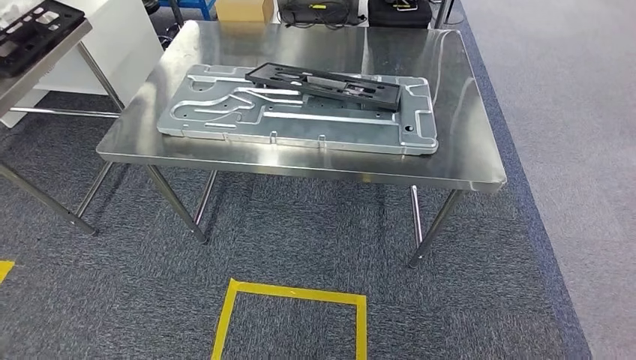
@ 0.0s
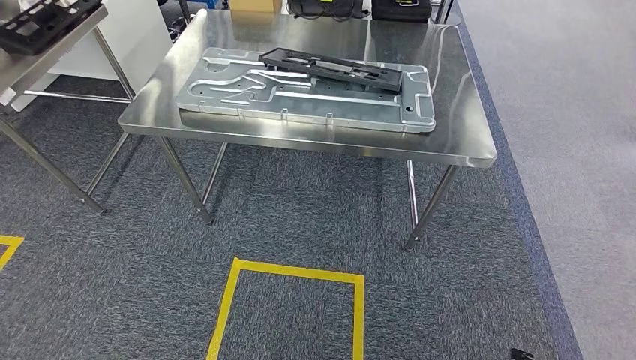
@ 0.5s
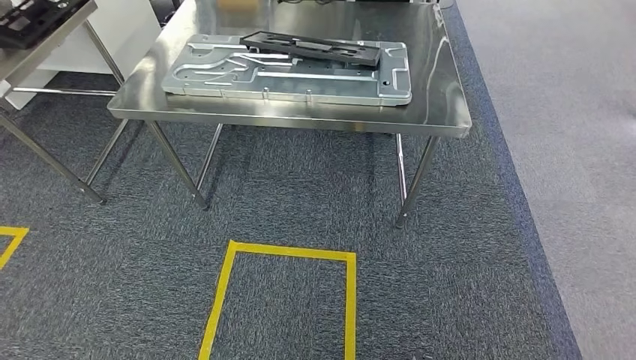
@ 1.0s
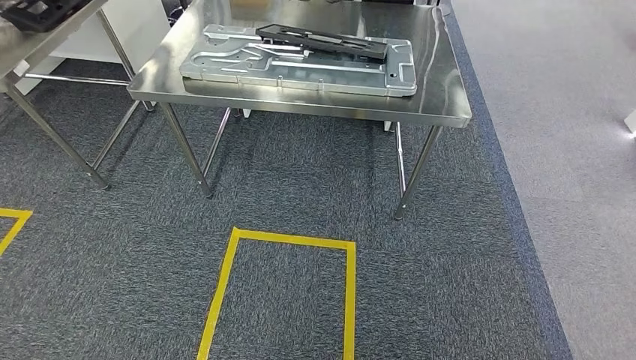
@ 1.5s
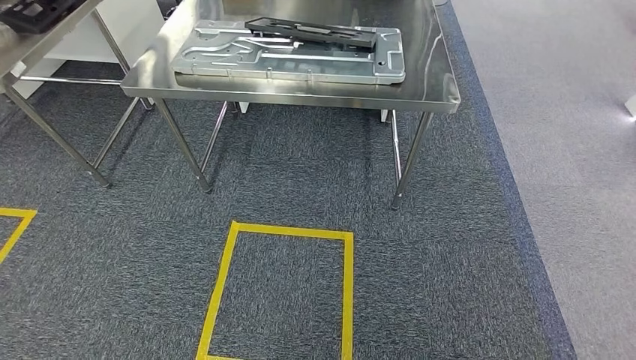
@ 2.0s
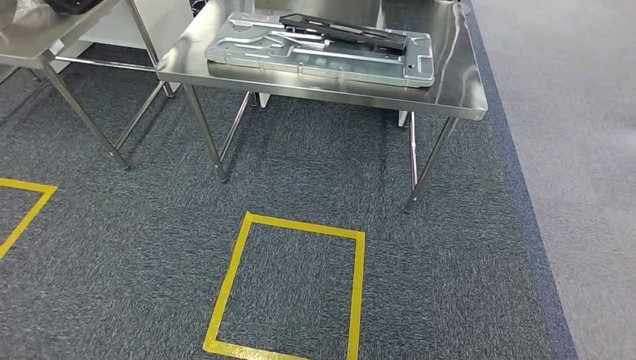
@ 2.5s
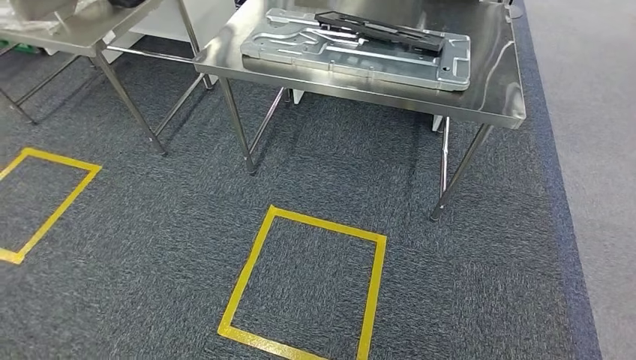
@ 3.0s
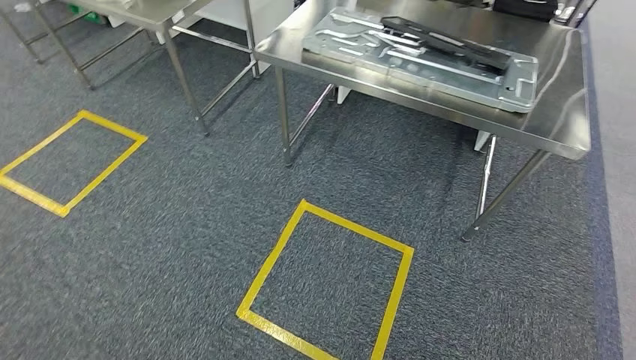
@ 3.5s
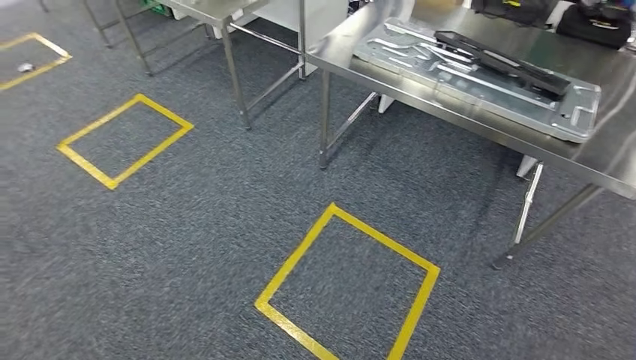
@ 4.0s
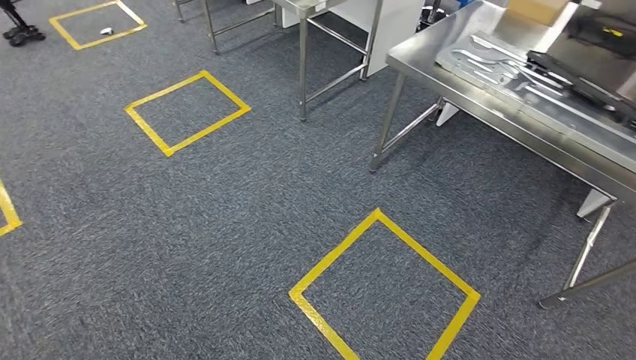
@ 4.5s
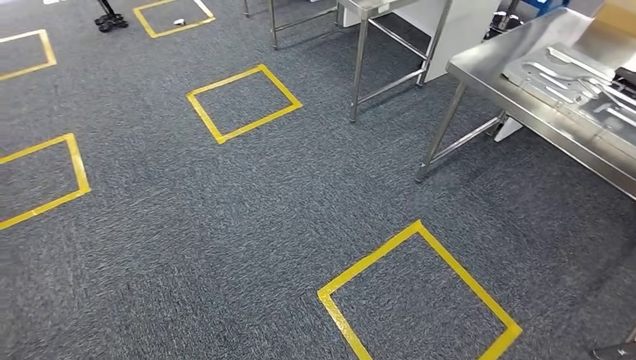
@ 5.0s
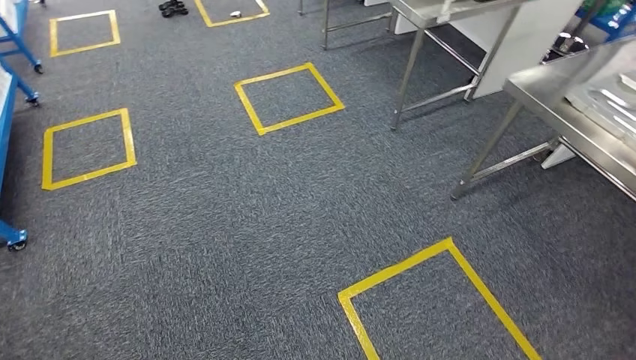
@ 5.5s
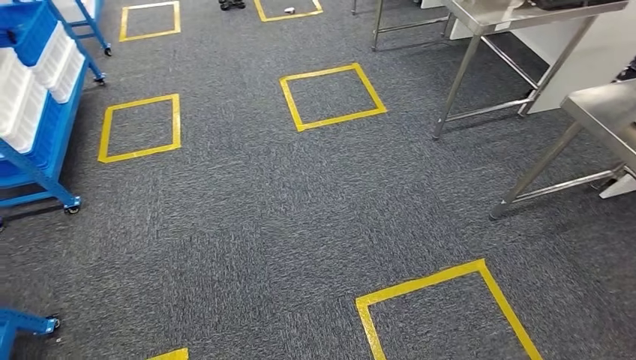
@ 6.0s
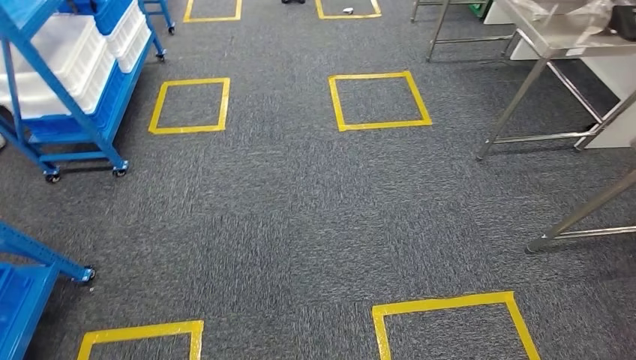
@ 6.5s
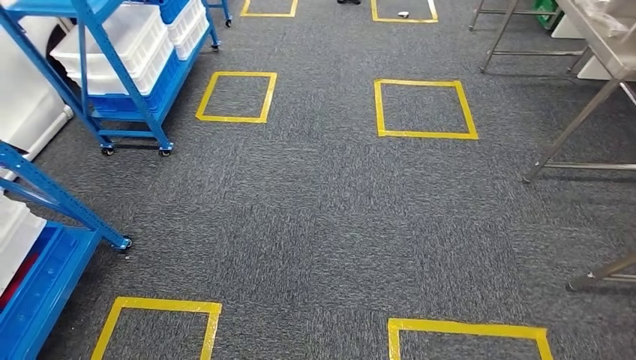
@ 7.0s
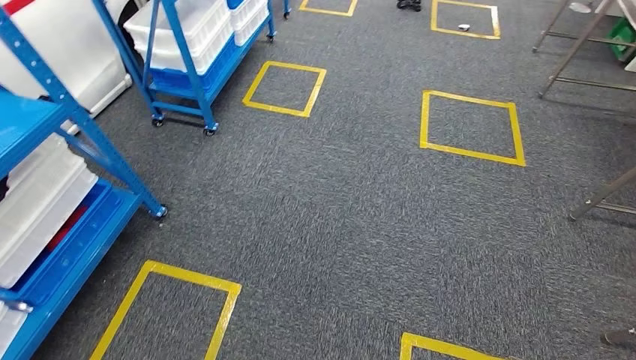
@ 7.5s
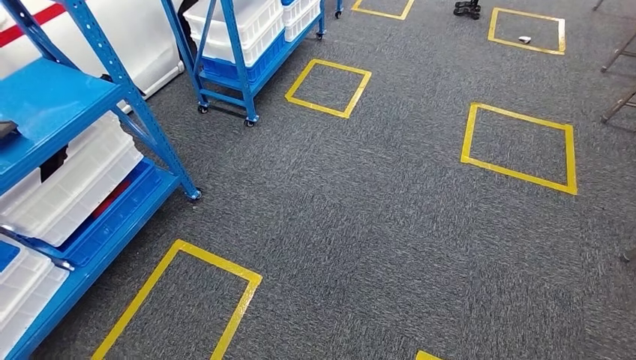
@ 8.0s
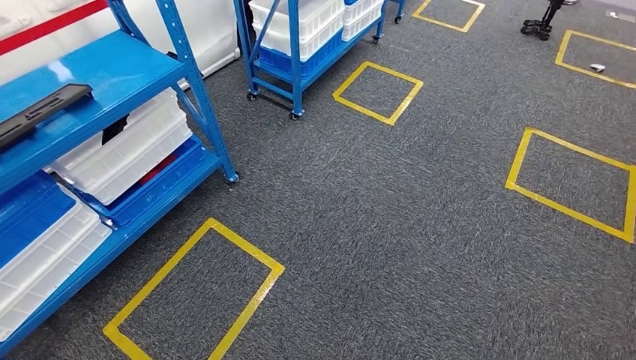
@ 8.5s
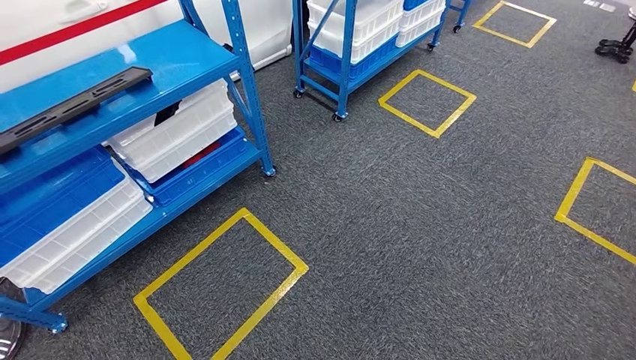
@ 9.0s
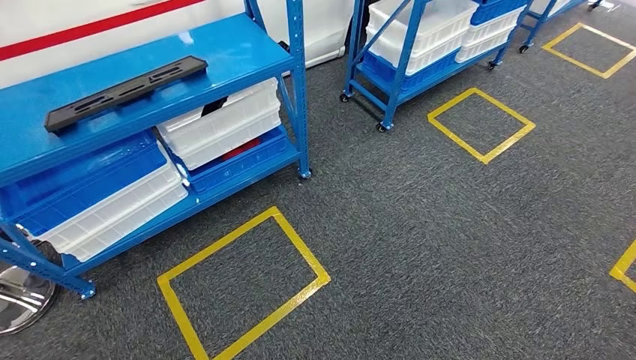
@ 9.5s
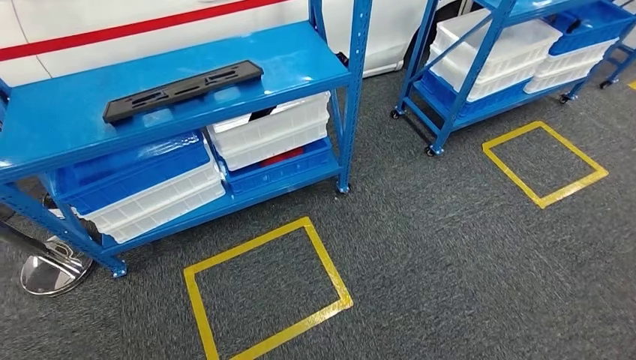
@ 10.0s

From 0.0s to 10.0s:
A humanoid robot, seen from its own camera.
Step, from 5.5s to 9.5s: Move to the initial position of the shelf.

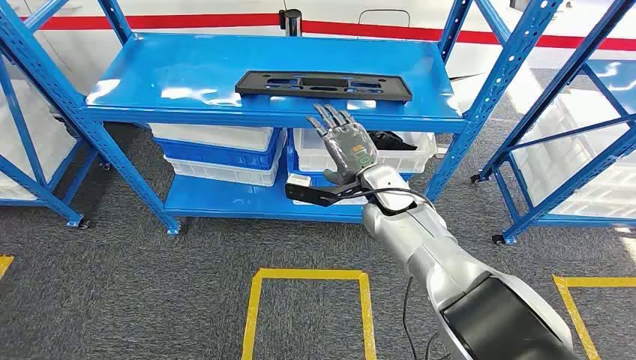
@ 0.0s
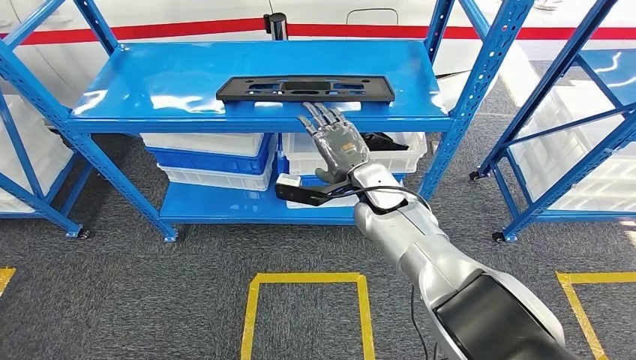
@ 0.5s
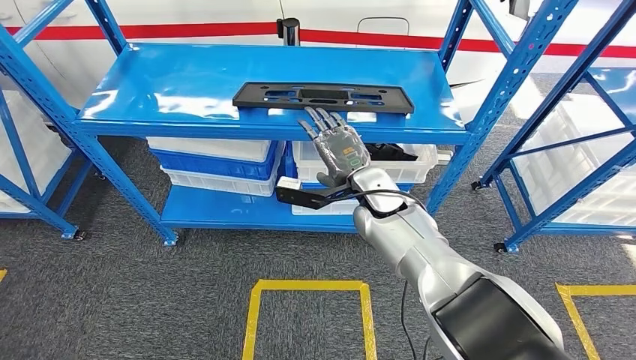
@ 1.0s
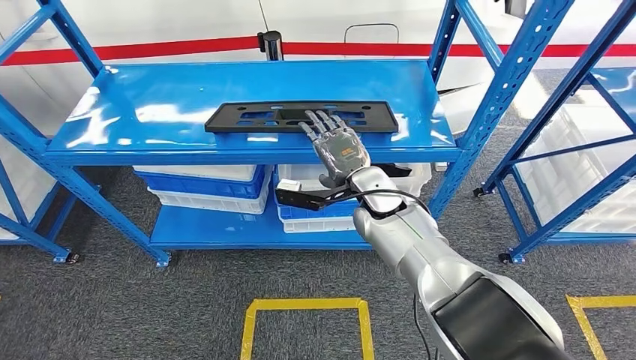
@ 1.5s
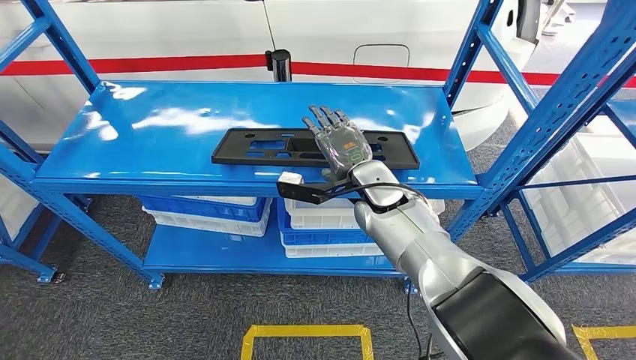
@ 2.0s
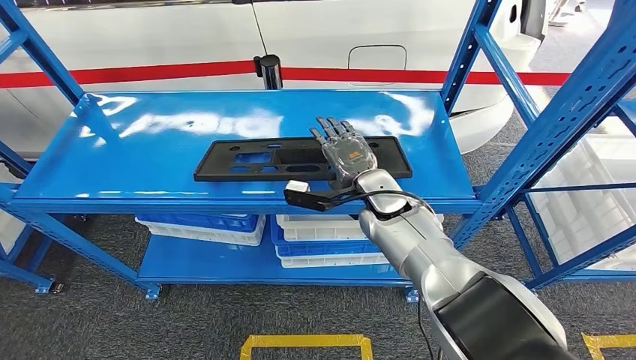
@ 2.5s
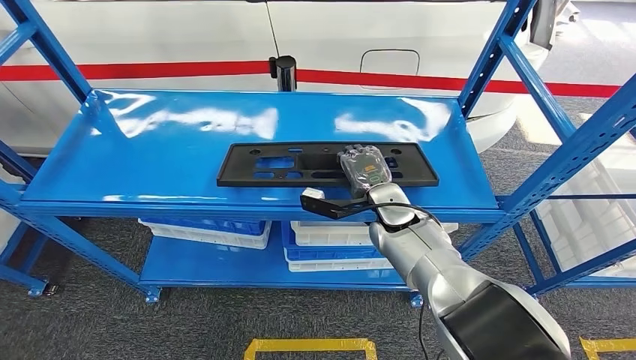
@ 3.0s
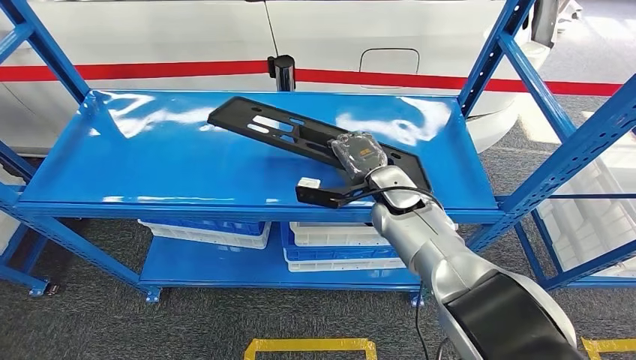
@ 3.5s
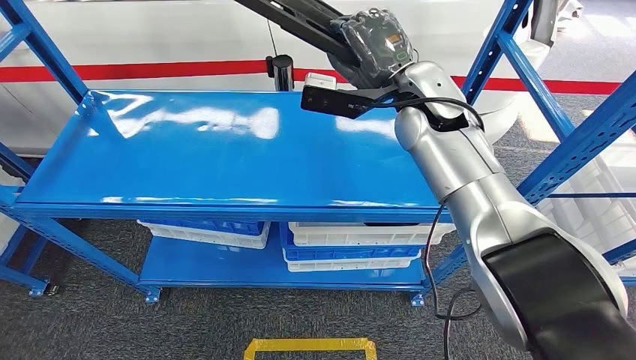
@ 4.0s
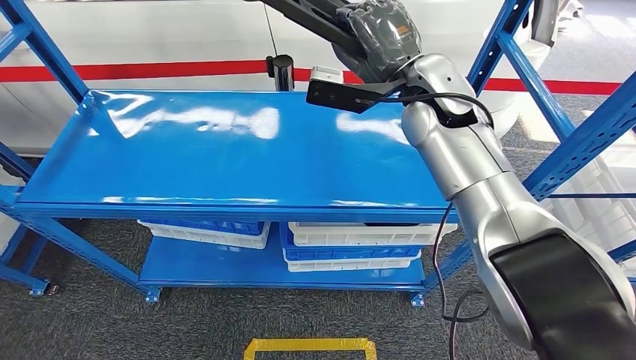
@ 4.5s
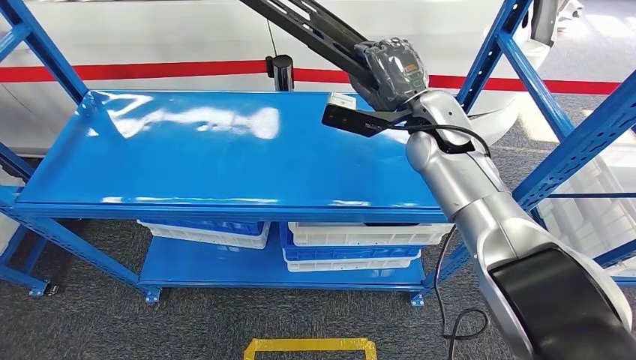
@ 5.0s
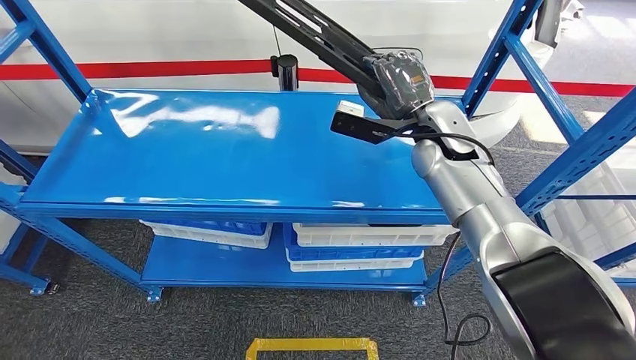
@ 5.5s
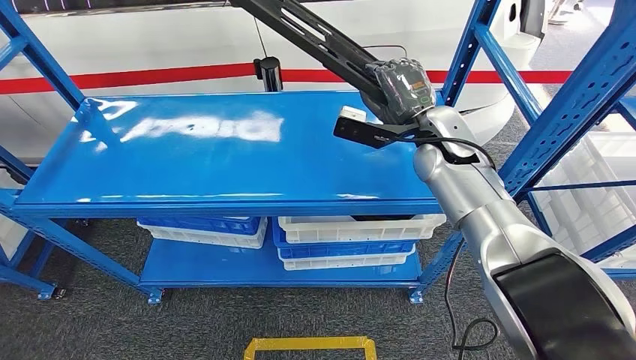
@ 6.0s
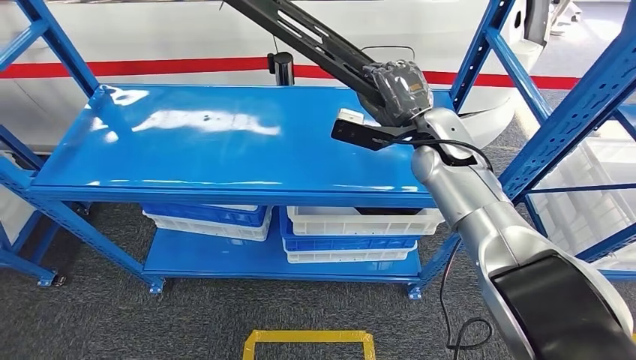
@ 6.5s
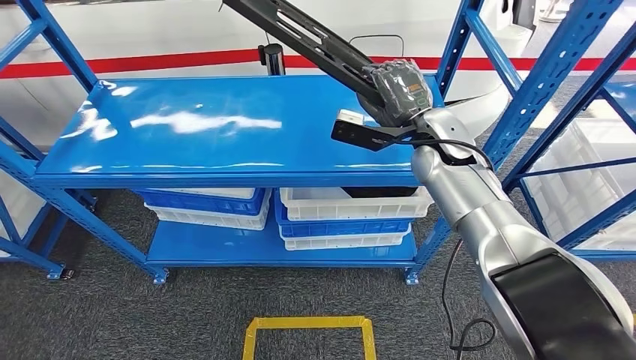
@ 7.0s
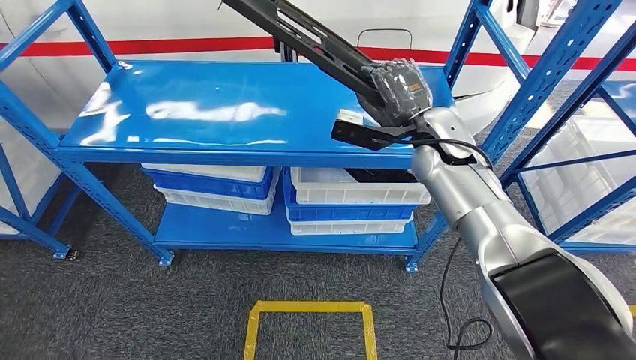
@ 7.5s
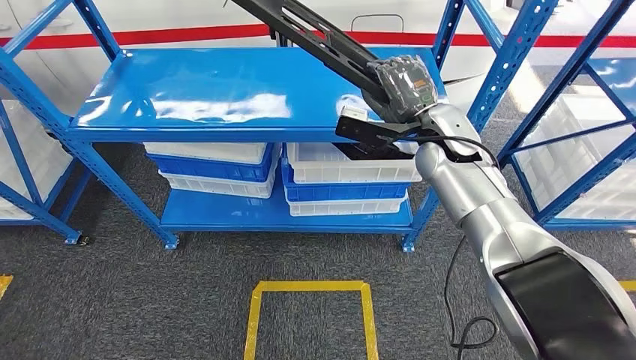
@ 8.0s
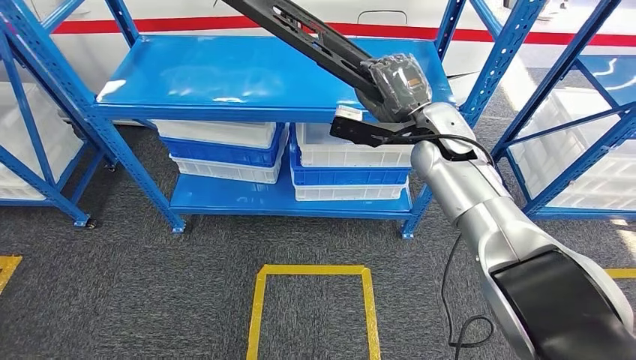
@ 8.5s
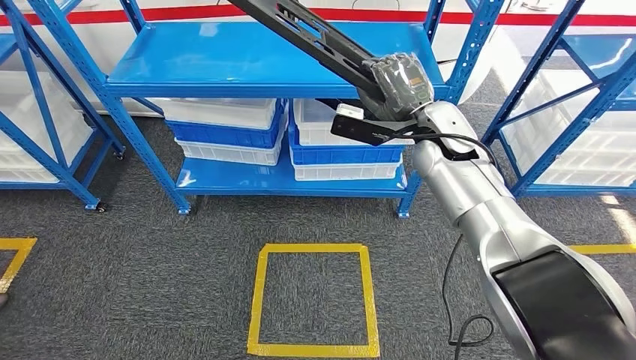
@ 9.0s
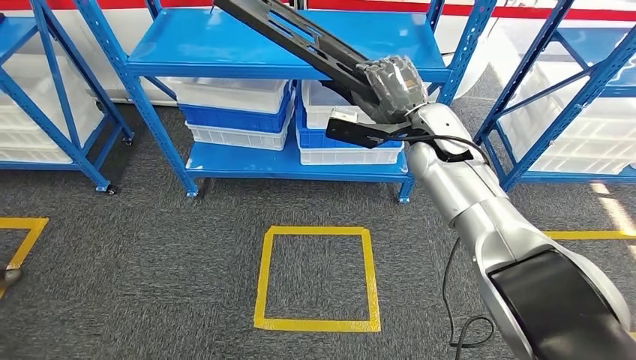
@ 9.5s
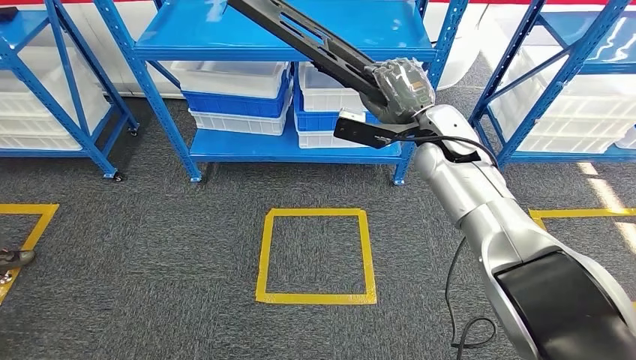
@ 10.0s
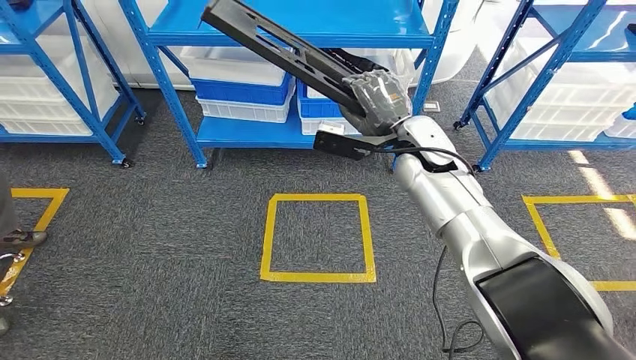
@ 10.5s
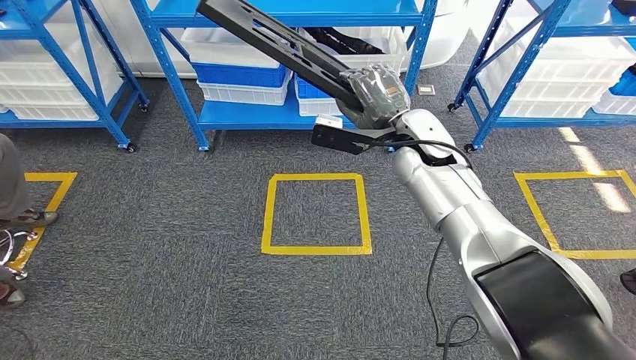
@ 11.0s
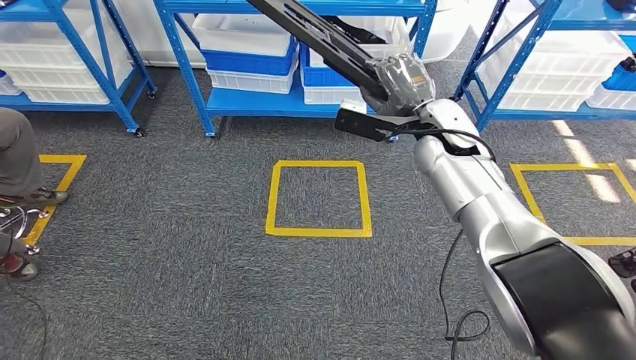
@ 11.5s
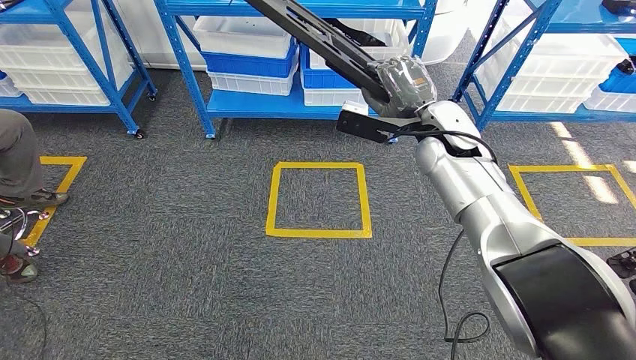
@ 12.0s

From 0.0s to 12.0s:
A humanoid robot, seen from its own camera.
Step, from 0.0s to 7.5s: Pick up the large material from the shelf.
